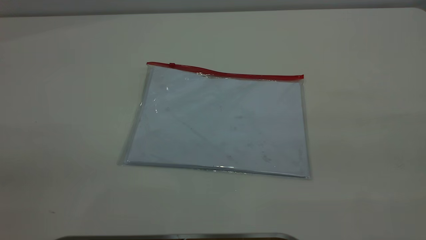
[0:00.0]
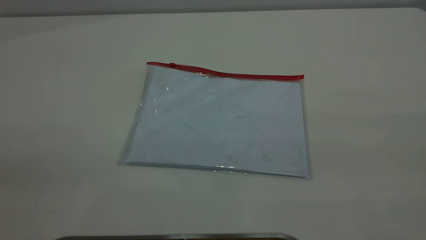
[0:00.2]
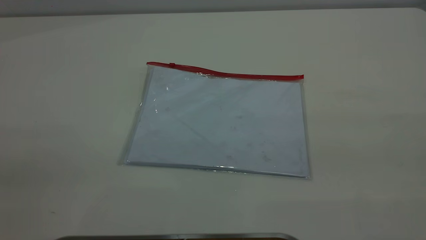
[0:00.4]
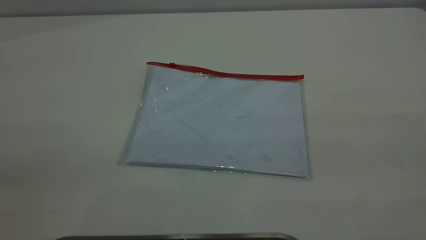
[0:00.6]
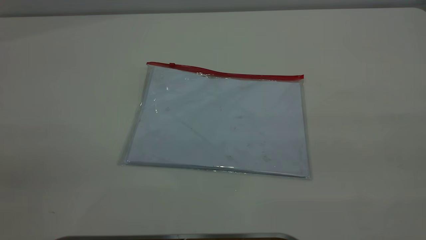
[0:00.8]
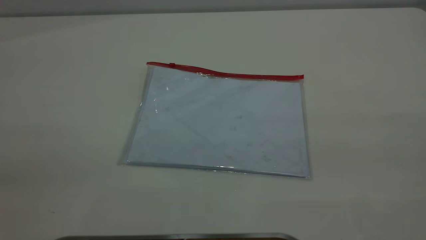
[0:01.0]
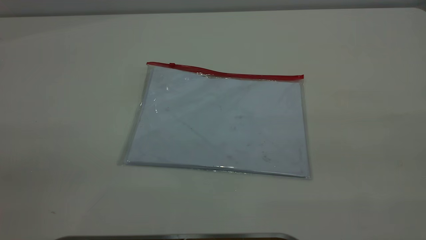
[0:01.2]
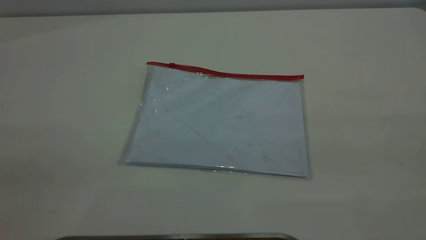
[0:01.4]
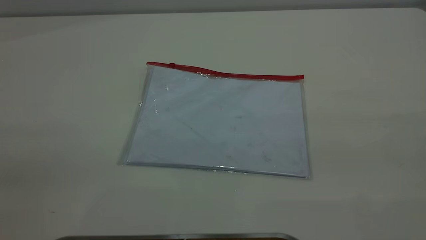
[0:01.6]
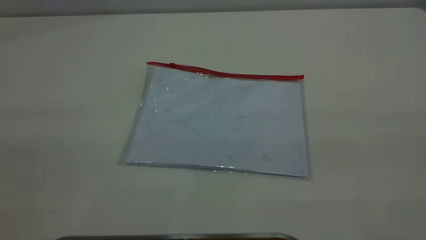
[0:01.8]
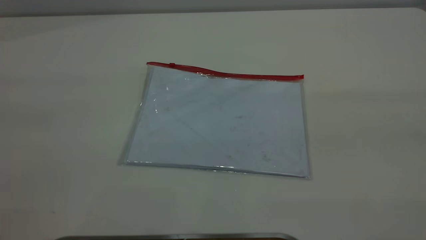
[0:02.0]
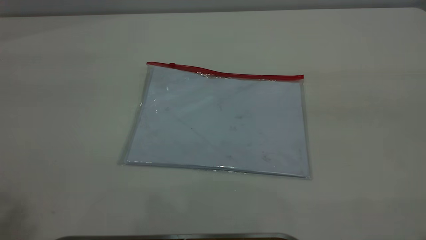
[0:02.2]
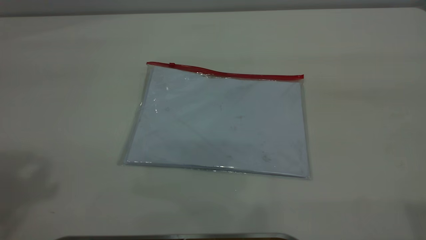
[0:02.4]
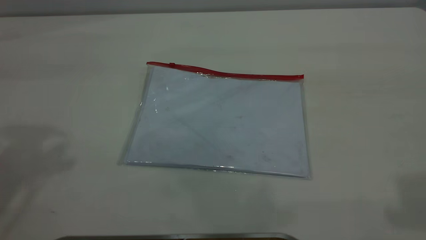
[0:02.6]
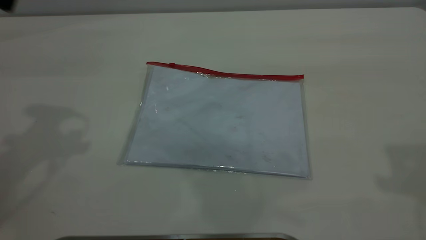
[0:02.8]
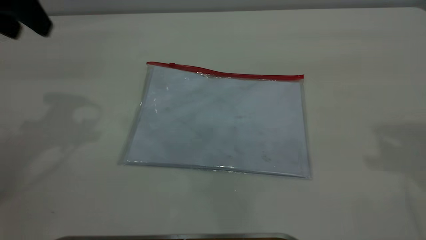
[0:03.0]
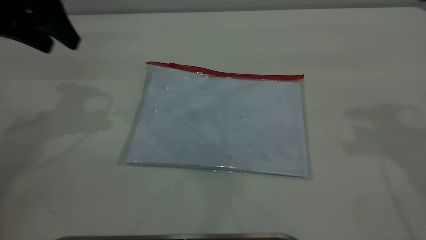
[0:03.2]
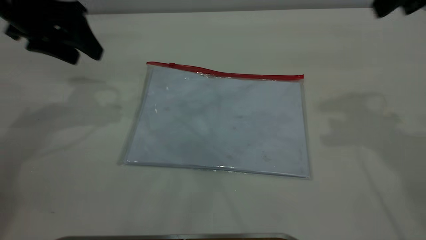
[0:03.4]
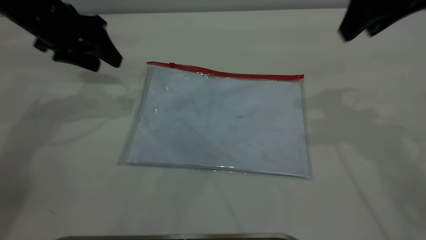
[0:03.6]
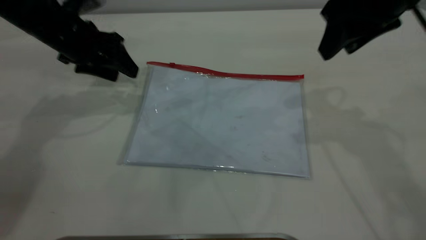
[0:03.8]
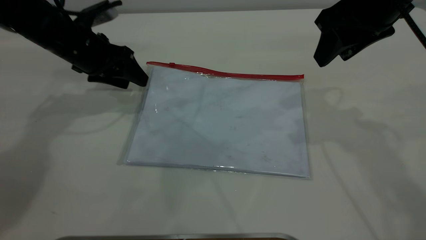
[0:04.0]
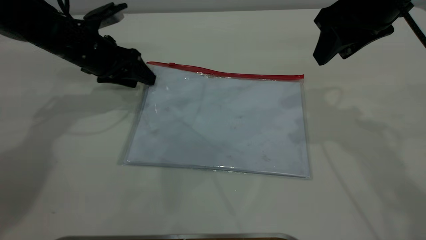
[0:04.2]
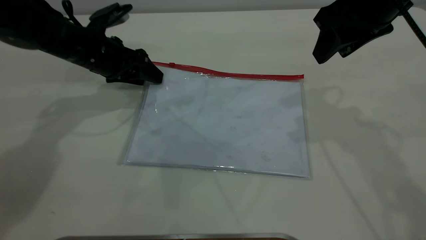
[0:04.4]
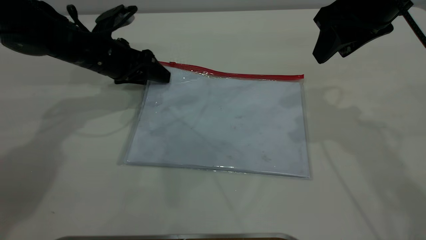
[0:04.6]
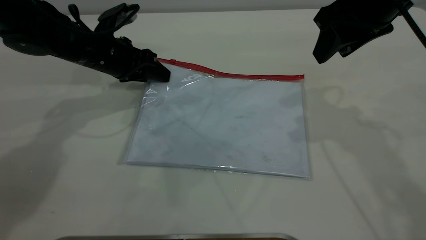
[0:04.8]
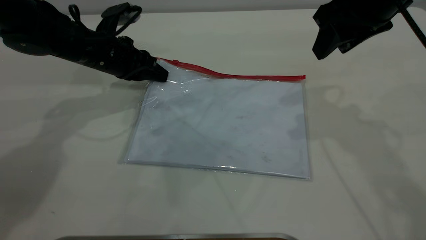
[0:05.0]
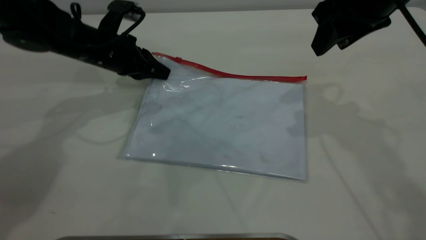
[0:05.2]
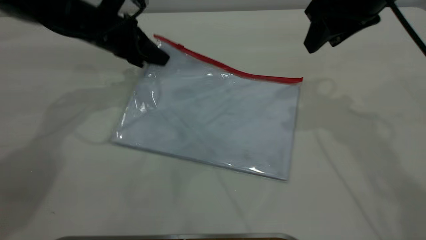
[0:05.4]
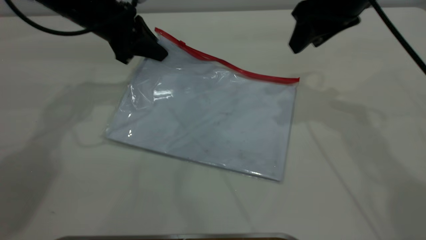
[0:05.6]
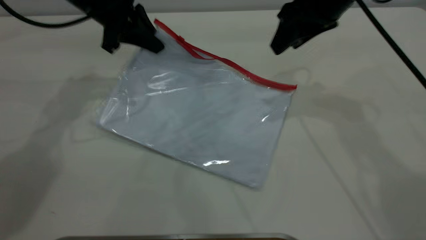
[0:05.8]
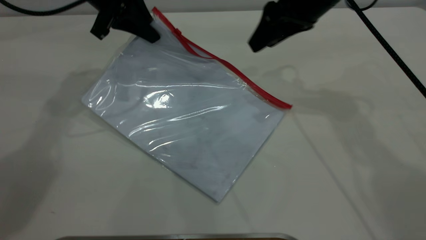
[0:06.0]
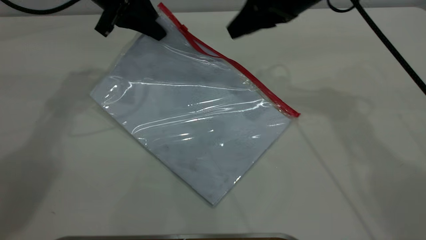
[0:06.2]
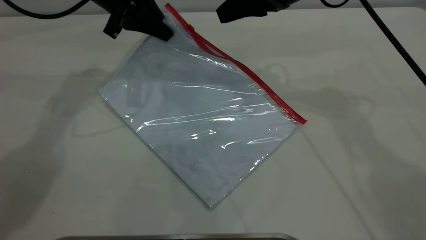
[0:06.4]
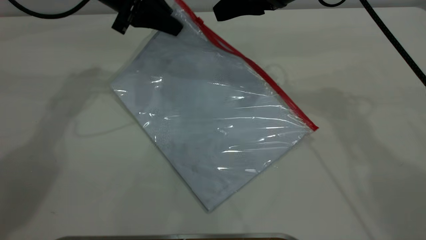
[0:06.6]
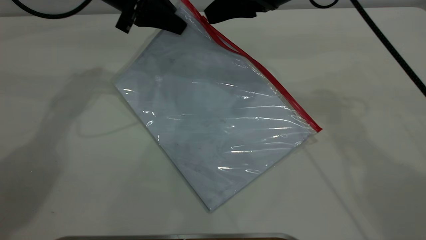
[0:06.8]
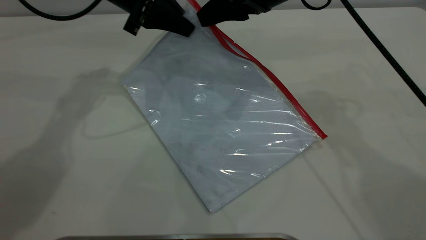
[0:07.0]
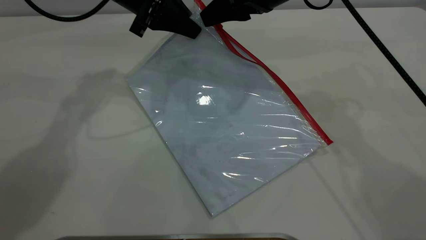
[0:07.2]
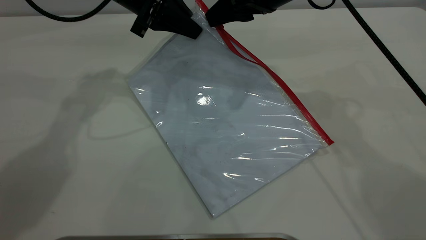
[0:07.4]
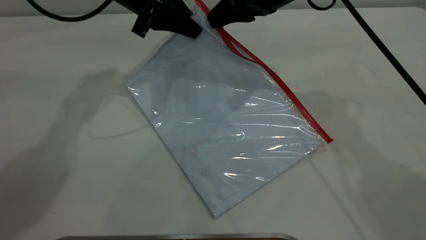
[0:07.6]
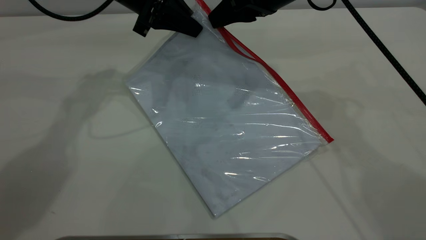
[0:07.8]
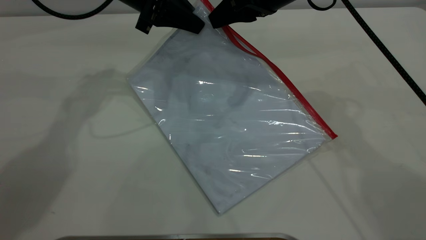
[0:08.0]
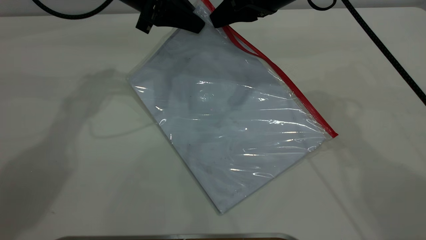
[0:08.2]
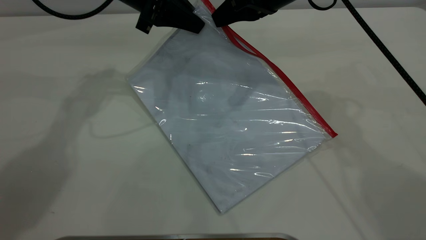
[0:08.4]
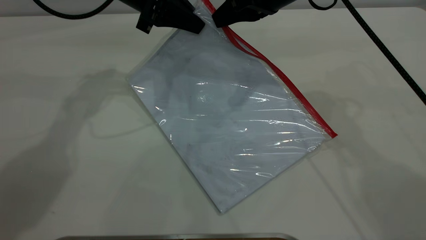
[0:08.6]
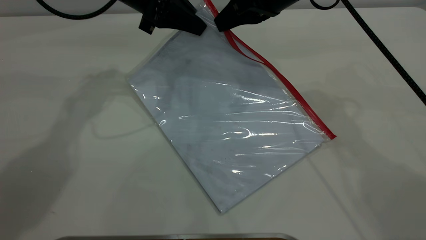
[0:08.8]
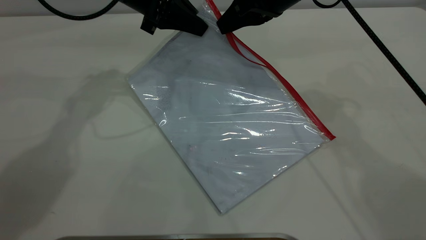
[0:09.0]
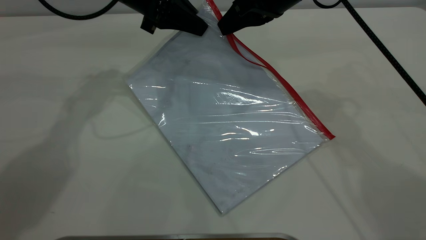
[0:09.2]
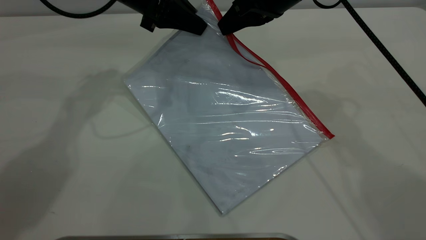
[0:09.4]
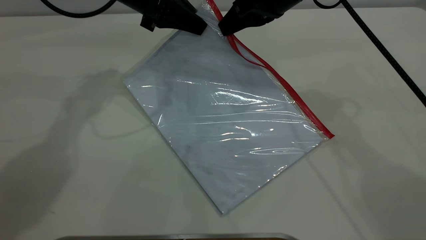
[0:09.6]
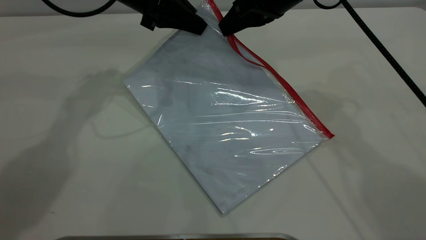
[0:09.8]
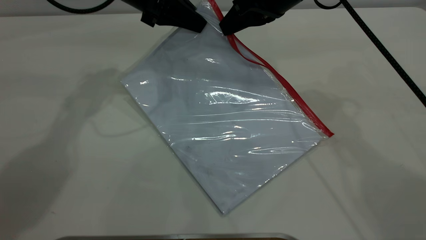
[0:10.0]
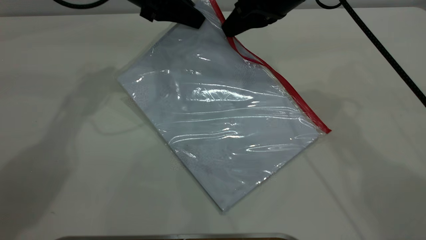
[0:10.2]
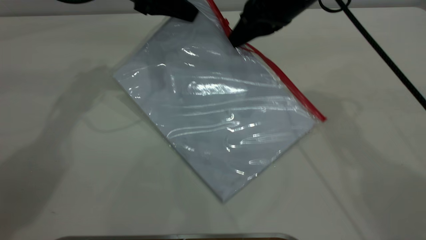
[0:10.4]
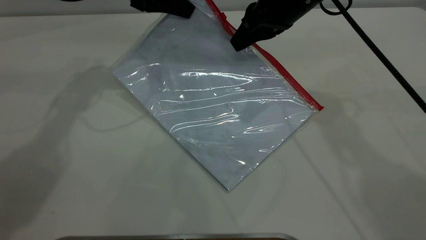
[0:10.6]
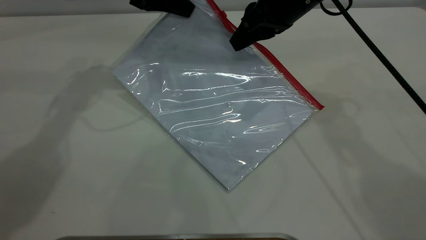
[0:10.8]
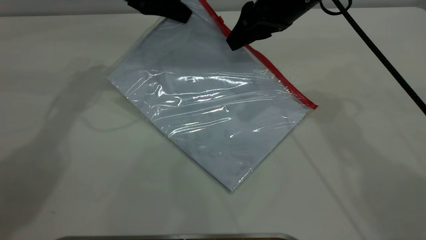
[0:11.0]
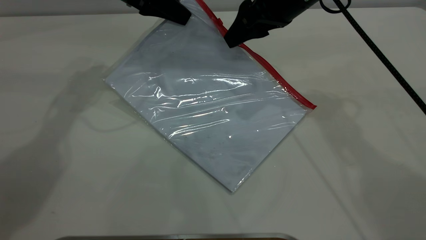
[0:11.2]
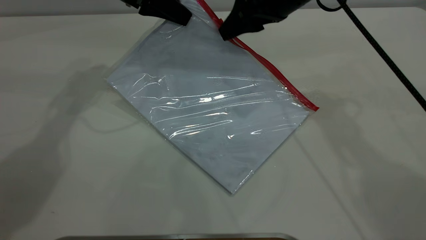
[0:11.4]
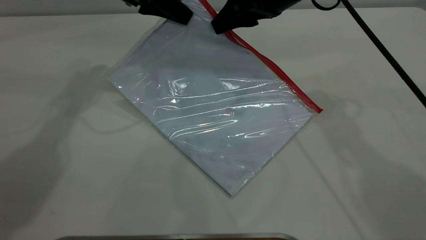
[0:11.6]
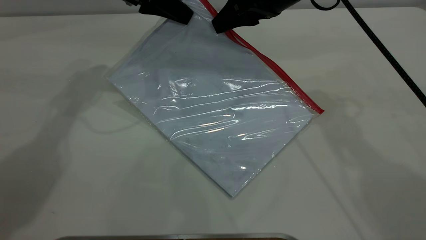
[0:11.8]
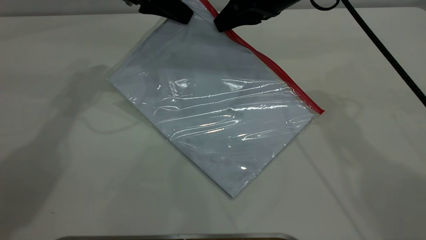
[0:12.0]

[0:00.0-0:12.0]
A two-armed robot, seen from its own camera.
Step, 0:00.0 to 0:05.4: Pick up the transparent plastic bag with the left gripper.
0:00.0 to 0:01.6: Both grippers stay put.
0:01.6 to 0:03.0: The left gripper goes some 35 cm forward.
0:03.0 to 0:04.4: The right gripper shifts some 15 cm downward, to the left and forward, while the left gripper travels downward and forward by roughly 20 cm.
0:04.4 to 0:06.0: The left gripper heads upward, covering some 10 cm, and closes up, while the right gripper is displaced forward by roughly 5 cm.
0:06.0 to 0:07.6: The grippers stay close to where they were, moving slightly.
0:07.6 to 0:09.0: The right gripper closes up.
0:09.0 to 0:10.4: The grippers move only a little.
0:10.4 to 0:12.0: The right gripper opens, then closes again.

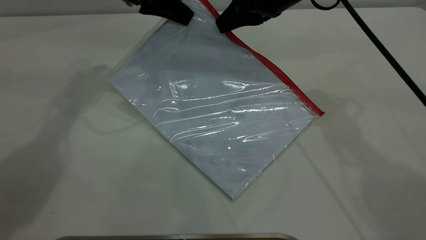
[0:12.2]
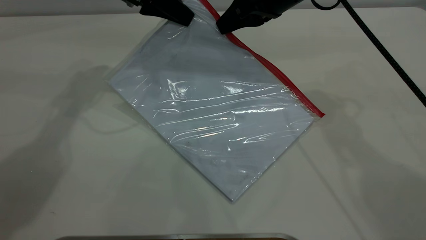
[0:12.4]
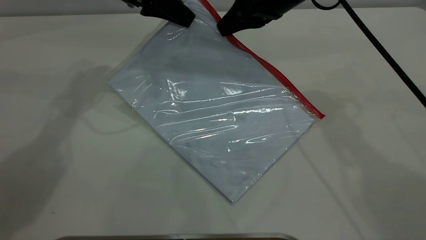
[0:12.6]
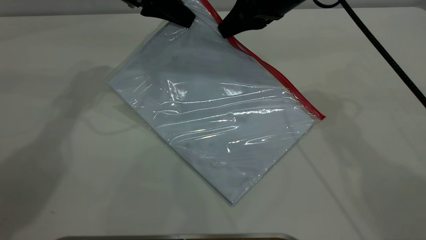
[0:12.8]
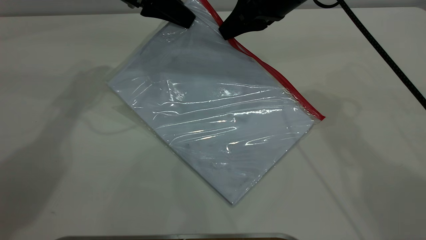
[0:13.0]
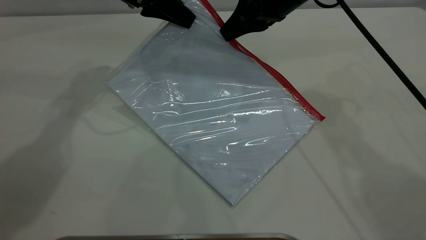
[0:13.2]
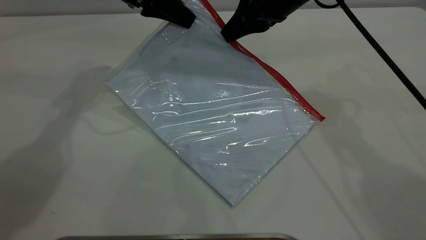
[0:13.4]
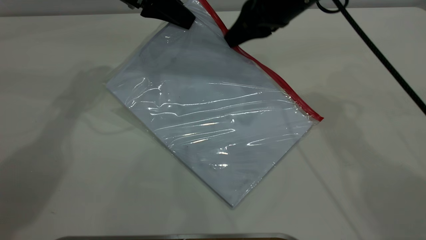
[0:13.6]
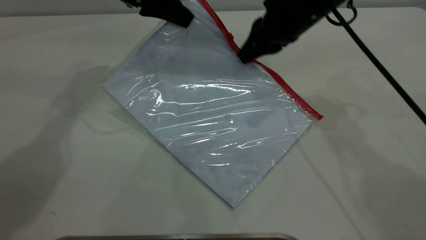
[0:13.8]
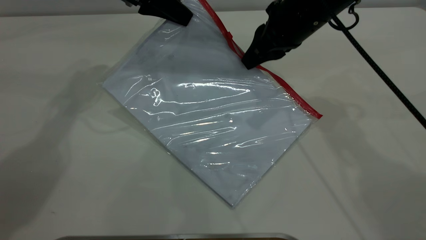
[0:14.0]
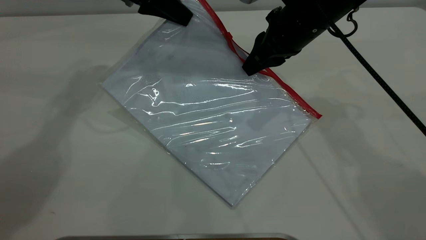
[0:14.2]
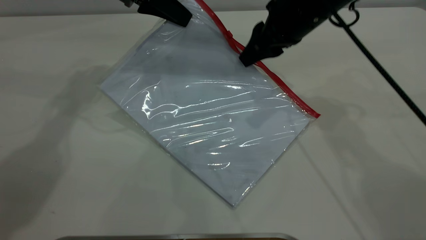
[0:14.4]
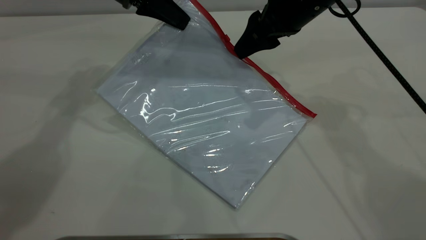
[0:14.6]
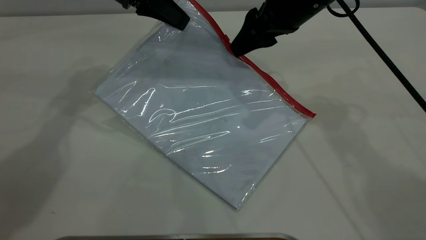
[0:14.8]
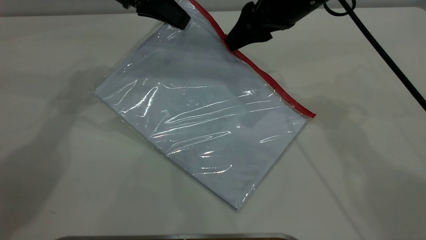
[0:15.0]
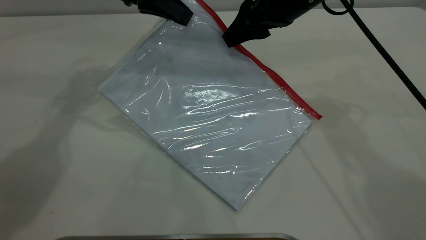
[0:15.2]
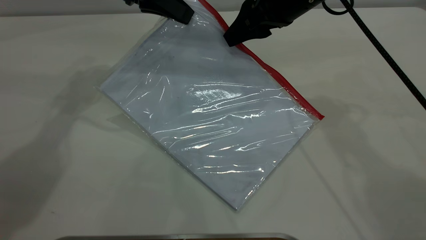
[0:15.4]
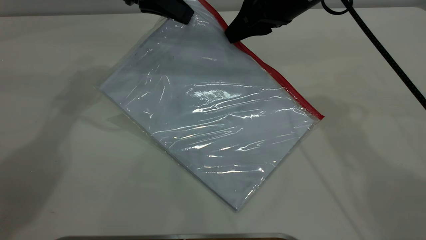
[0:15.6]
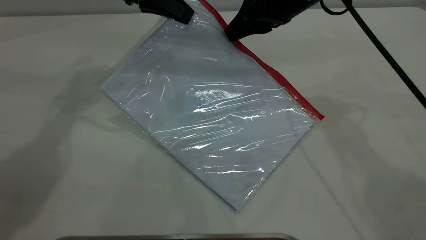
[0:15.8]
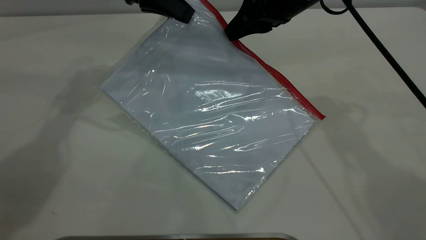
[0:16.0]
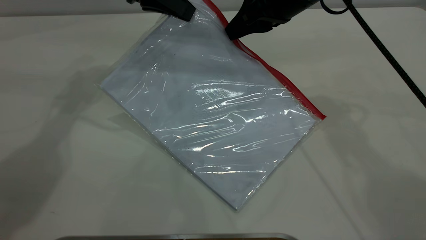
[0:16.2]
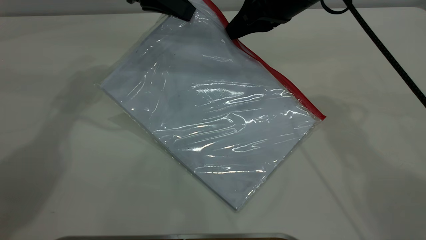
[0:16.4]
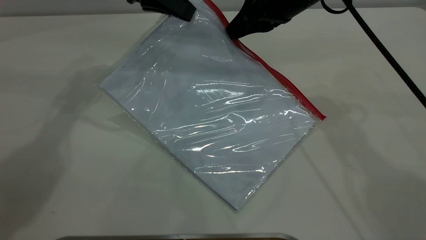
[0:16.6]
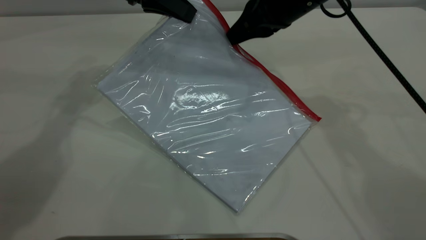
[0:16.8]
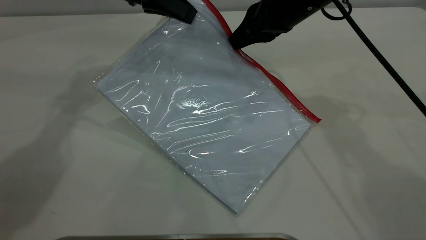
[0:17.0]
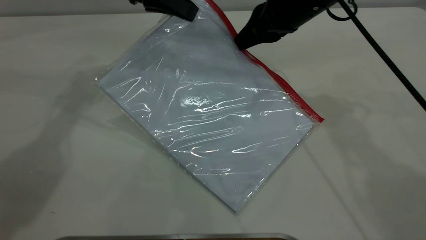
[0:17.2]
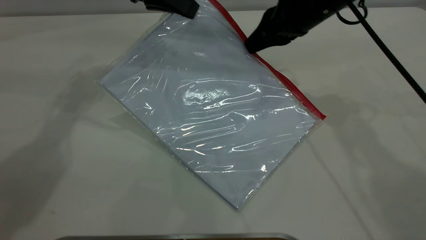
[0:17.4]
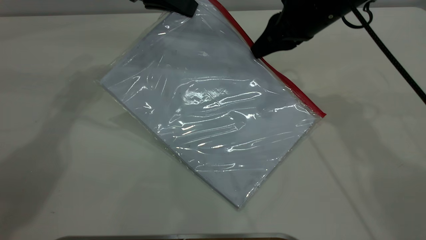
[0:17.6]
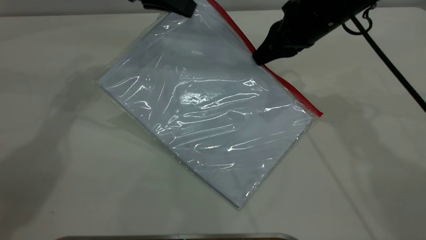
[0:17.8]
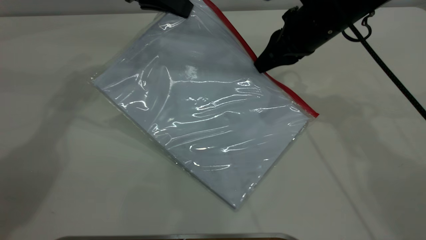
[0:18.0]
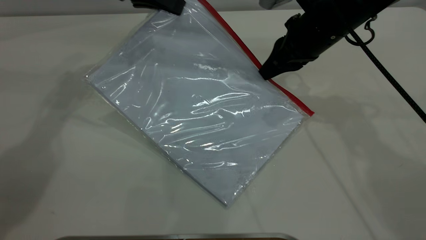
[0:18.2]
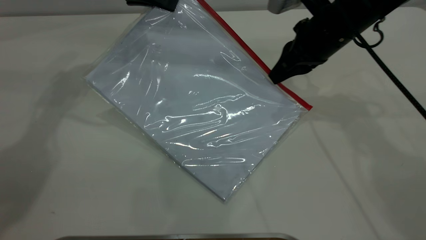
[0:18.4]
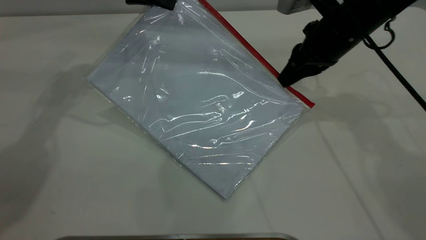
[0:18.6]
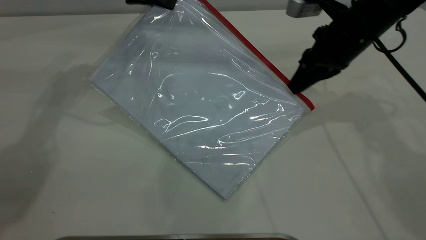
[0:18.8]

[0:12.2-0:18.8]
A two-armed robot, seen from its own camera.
0:12.2 to 0:13.8: There are only small adjustments of the grippers.
0:13.8 to 0:15.4: The right gripper opens up.
0:15.4 to 0:17.2: The right gripper closes its fingers.
0:17.2 to 0:18.8: The right gripper heads to the right, covering about 5 cm.
